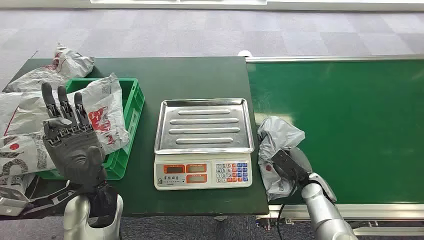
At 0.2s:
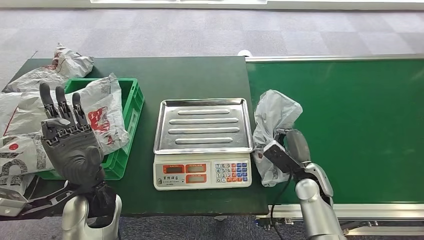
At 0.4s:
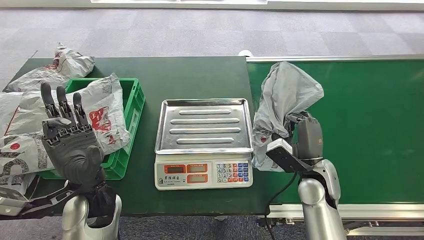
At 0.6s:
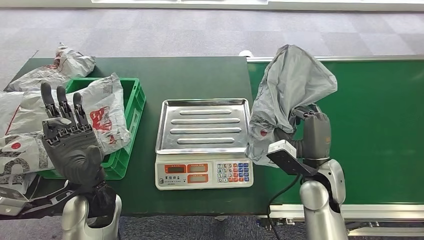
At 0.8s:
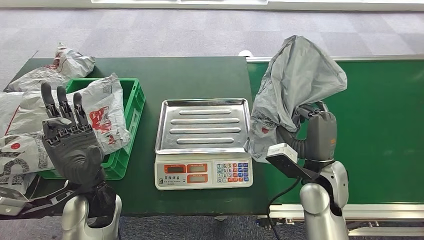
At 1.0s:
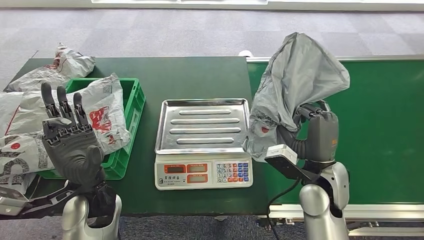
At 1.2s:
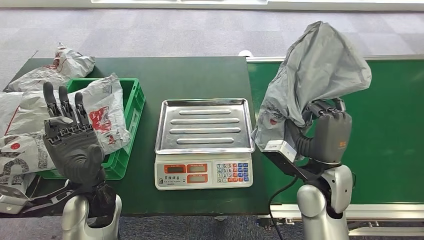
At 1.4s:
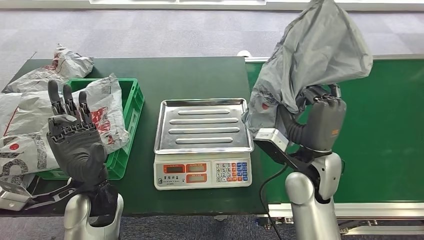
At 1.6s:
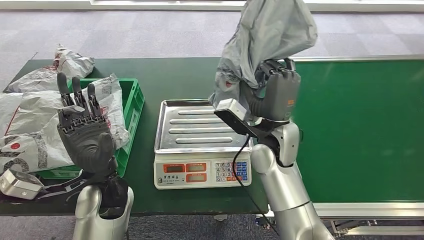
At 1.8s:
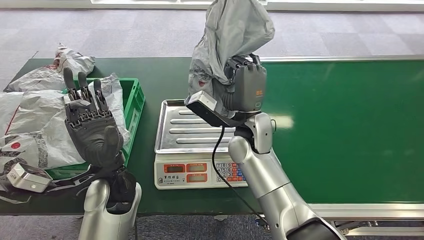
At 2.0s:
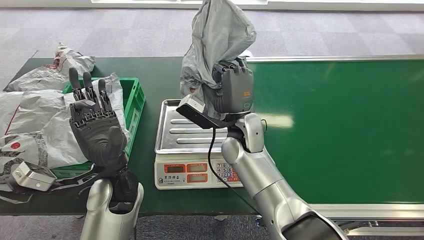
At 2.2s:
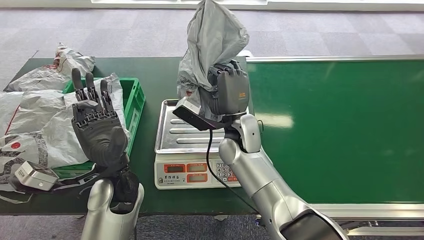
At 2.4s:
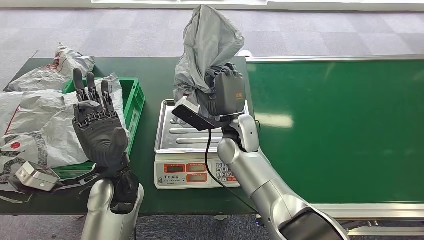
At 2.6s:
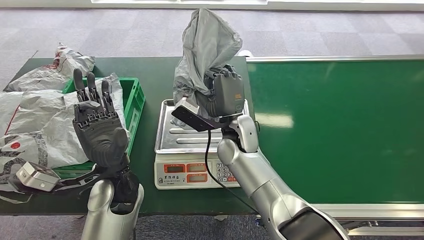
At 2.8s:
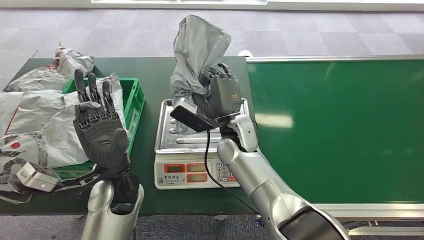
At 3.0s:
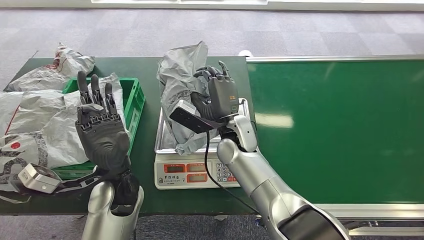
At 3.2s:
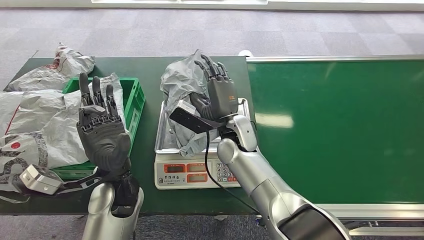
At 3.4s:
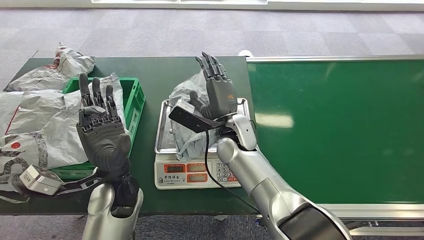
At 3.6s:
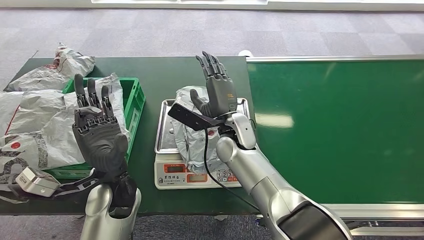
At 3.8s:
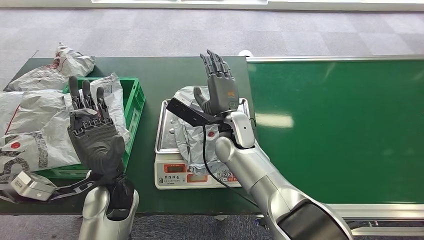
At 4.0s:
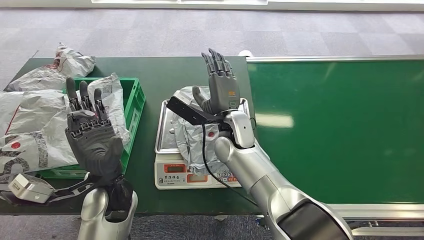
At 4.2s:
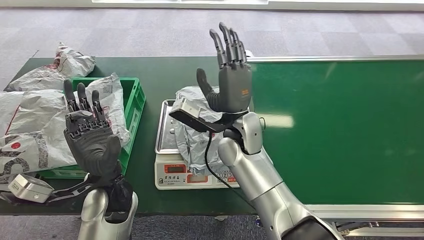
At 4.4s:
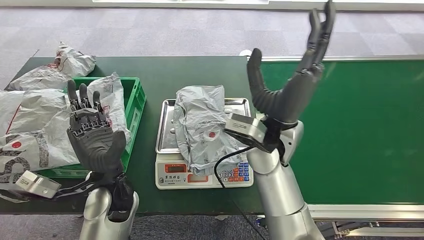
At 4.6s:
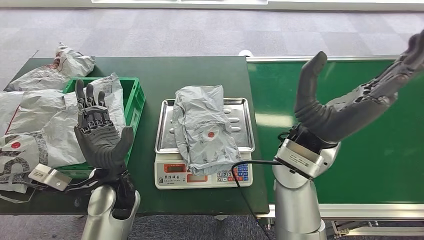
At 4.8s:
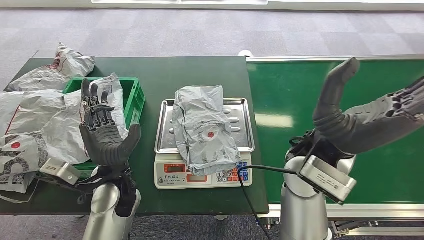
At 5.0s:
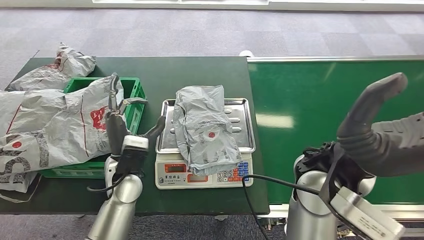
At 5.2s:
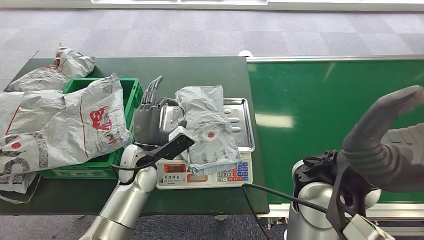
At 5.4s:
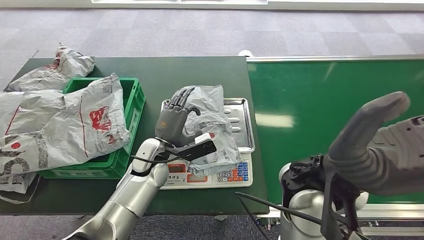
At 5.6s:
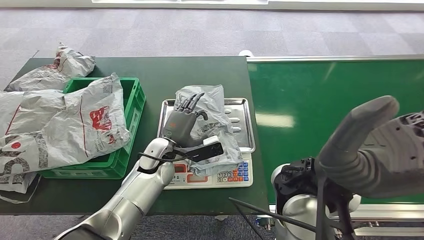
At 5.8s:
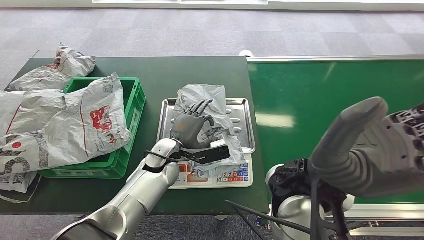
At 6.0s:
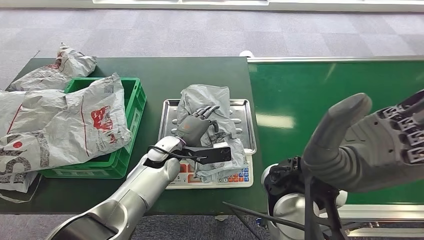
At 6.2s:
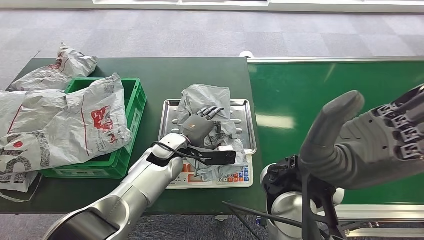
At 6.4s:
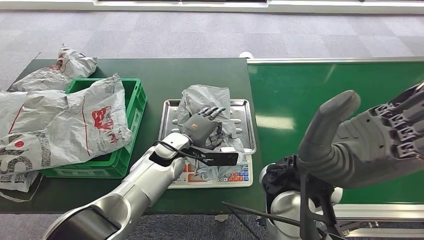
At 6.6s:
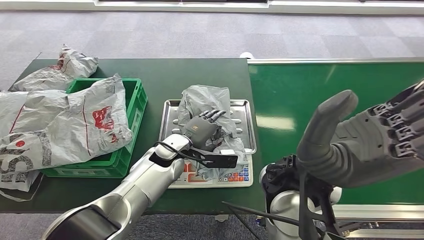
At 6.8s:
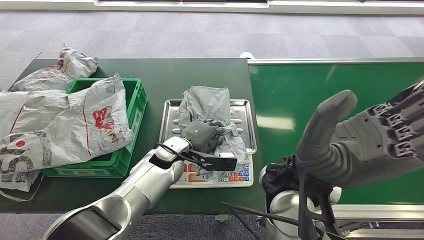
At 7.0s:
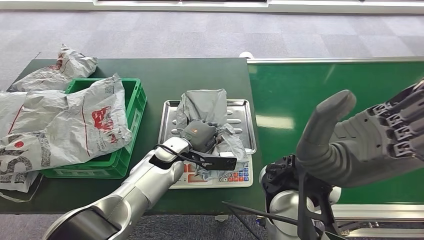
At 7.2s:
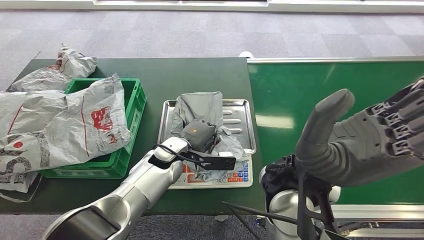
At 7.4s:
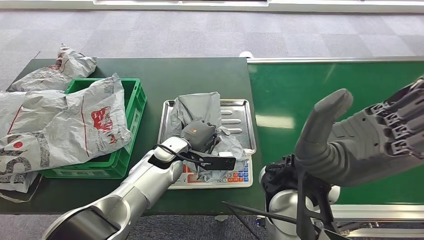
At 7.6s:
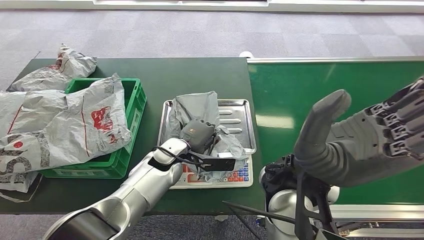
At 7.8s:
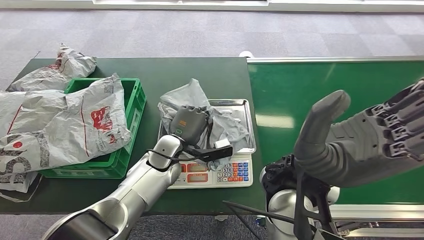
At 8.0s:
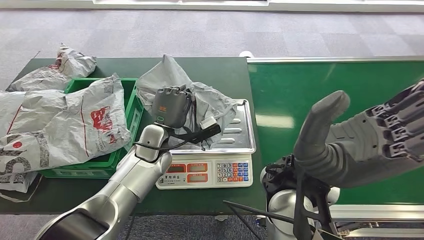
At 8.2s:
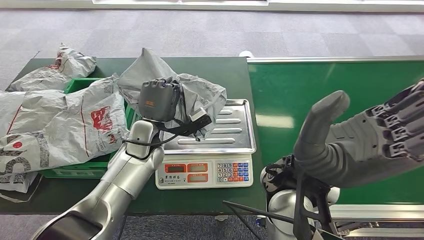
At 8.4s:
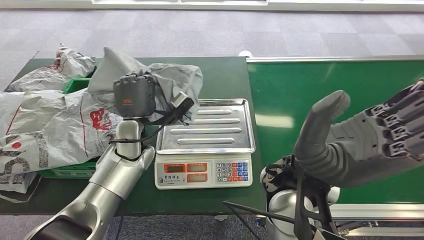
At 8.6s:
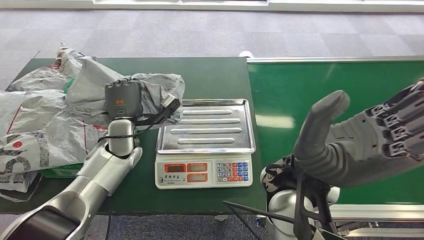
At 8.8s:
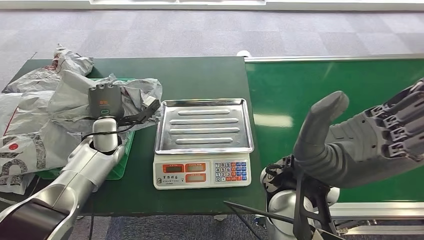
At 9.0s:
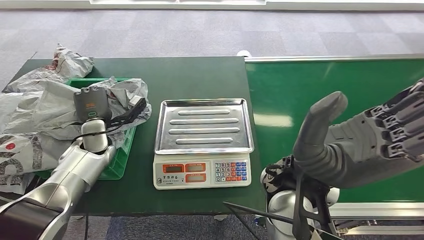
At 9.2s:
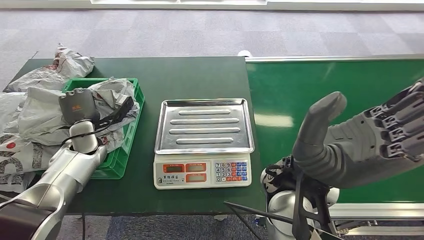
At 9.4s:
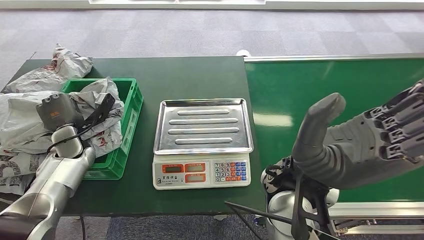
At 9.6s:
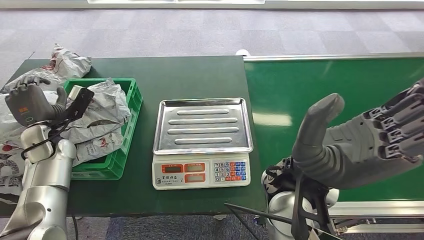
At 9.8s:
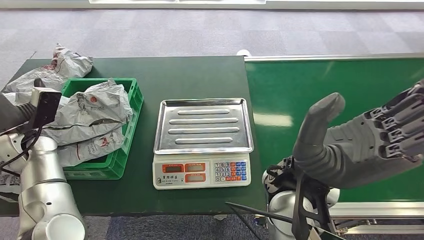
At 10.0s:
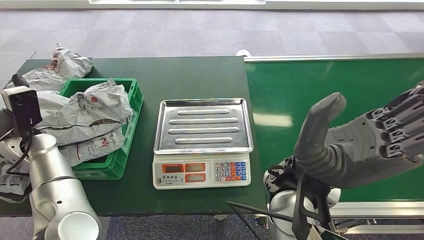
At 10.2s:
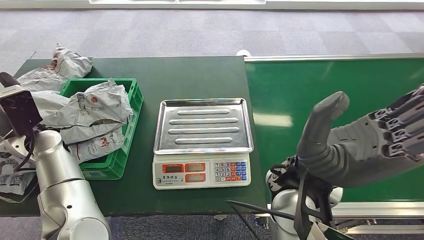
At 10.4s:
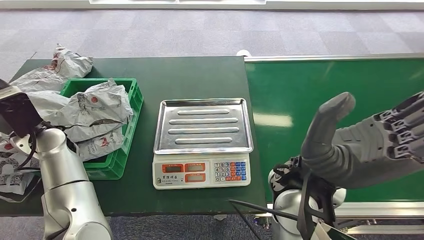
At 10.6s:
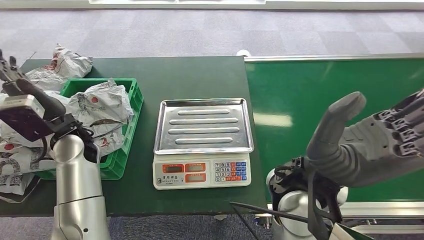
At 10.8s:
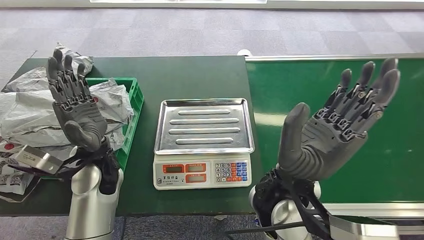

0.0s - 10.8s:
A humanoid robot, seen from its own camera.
Step, 0.0s - 0.6s: Pick up the package from the conveyor belt.
Step, 0.8s - 4.8s: Place the package onto the inbound machine.
Step, 5.0s - 8.2s: Pick up the package from the inbound machine.
Step, 8.4s - 10.8s: Place the package into the parcel locker.

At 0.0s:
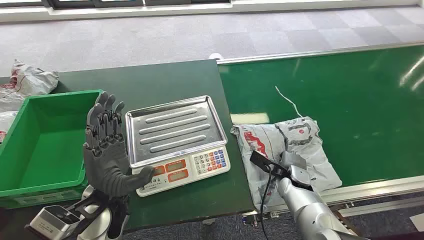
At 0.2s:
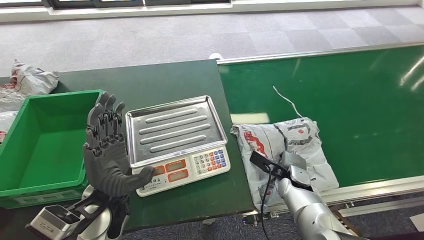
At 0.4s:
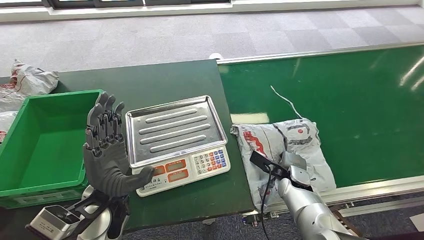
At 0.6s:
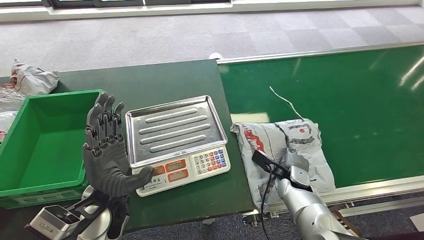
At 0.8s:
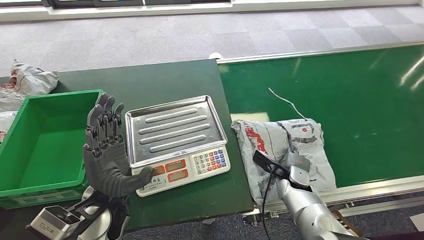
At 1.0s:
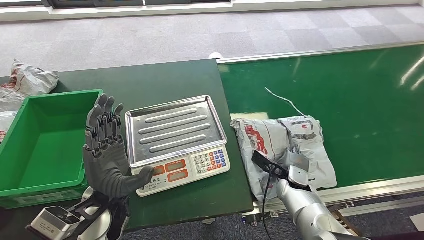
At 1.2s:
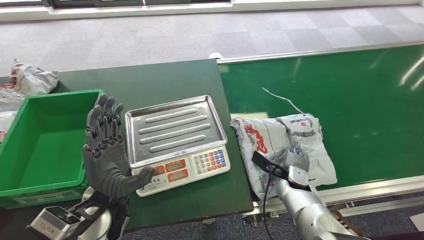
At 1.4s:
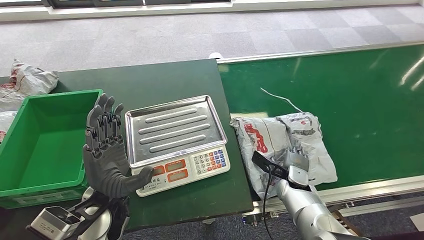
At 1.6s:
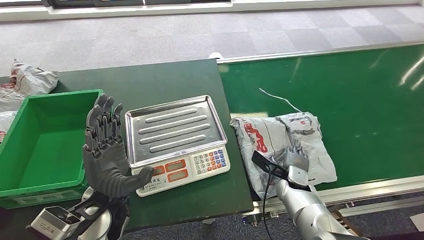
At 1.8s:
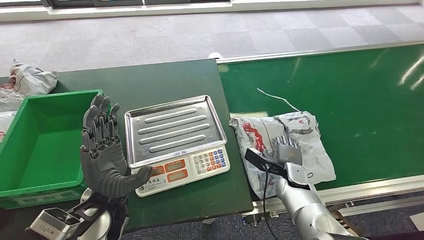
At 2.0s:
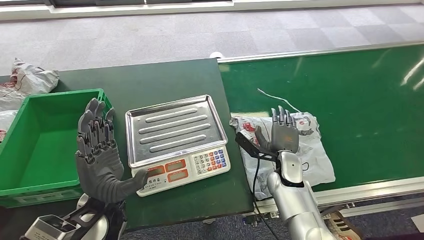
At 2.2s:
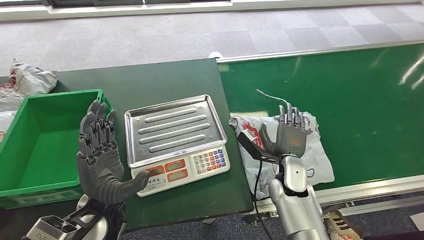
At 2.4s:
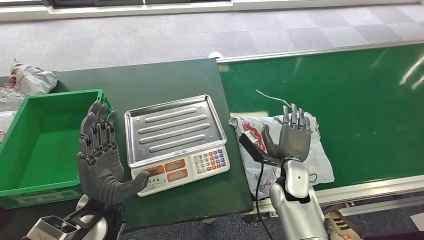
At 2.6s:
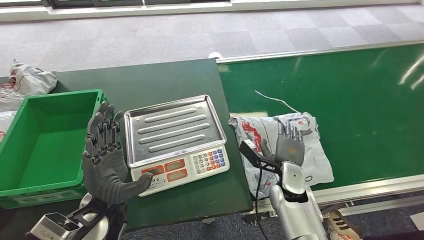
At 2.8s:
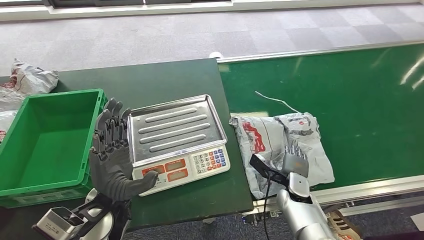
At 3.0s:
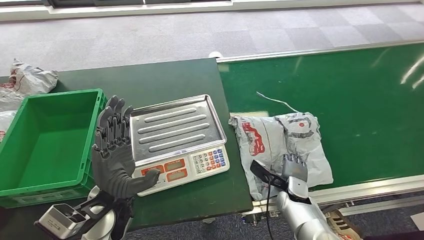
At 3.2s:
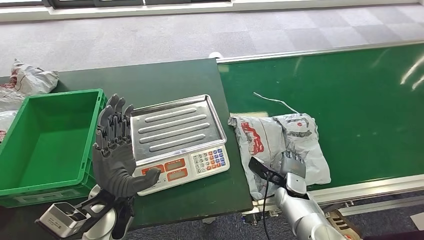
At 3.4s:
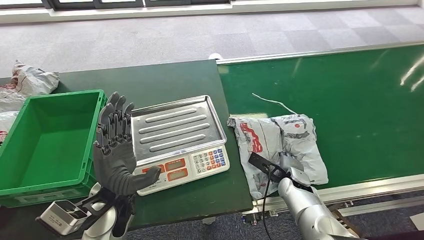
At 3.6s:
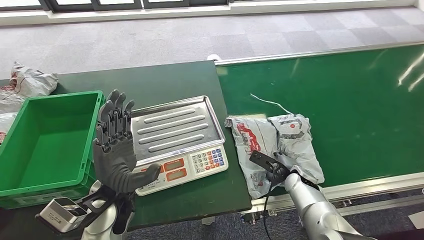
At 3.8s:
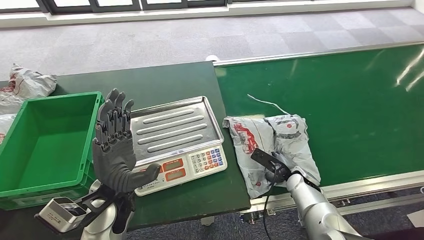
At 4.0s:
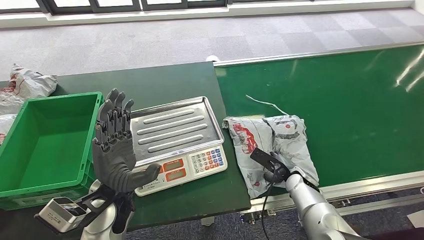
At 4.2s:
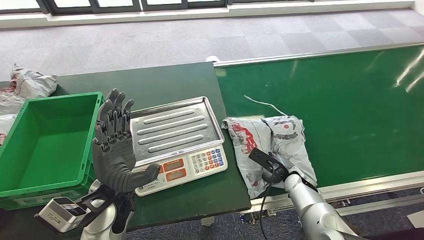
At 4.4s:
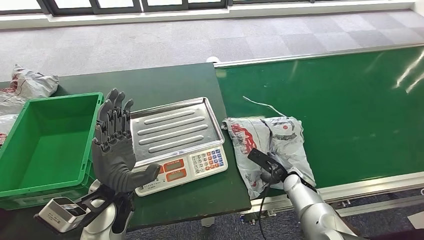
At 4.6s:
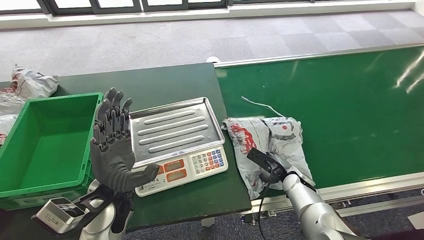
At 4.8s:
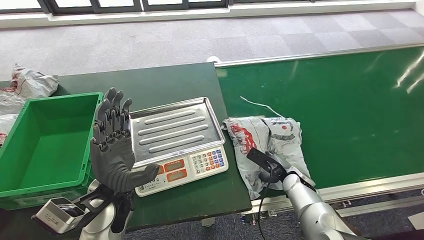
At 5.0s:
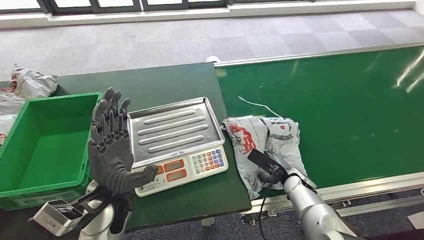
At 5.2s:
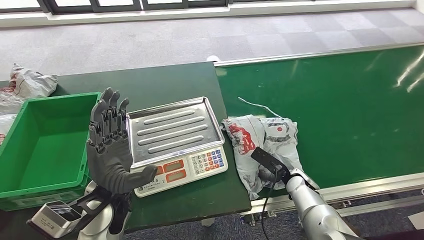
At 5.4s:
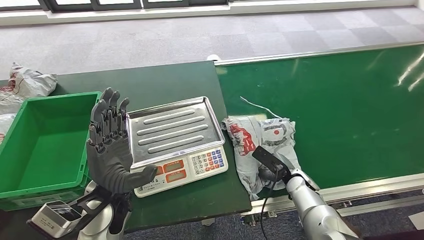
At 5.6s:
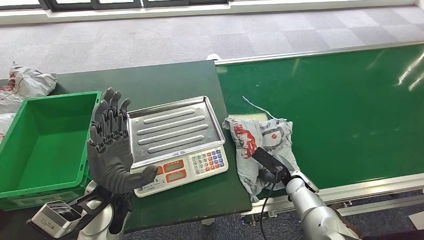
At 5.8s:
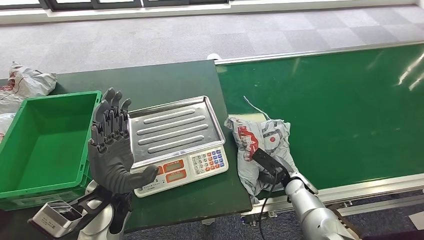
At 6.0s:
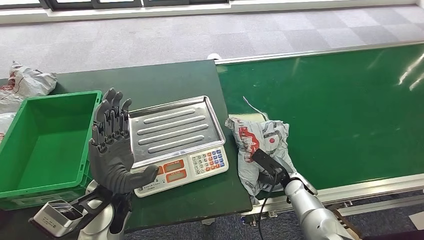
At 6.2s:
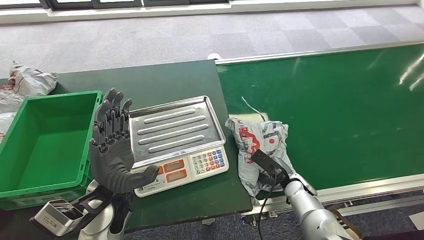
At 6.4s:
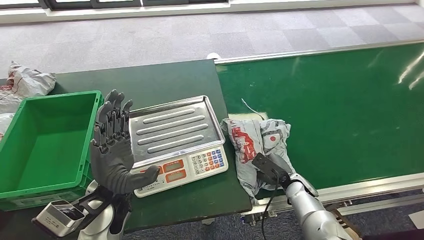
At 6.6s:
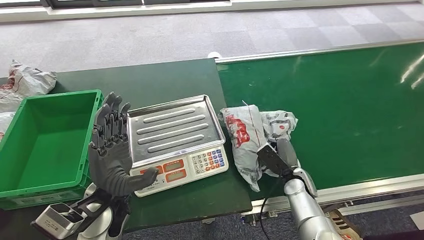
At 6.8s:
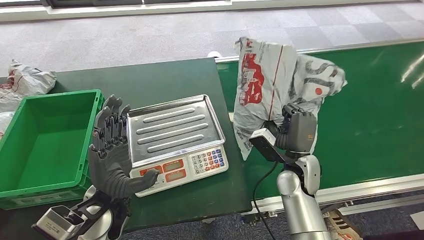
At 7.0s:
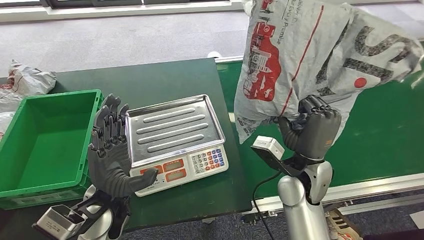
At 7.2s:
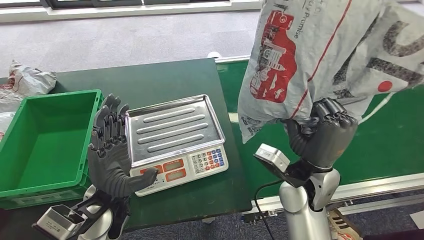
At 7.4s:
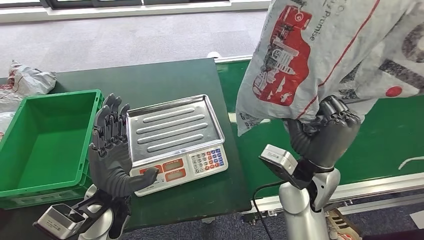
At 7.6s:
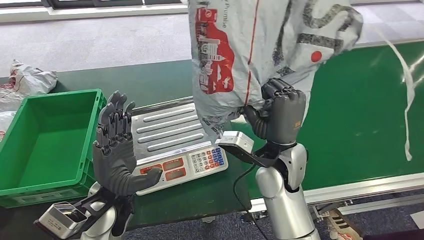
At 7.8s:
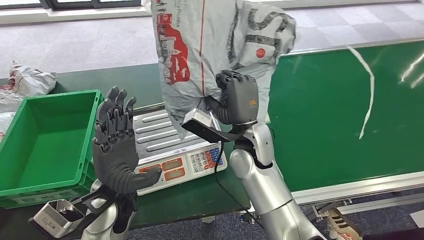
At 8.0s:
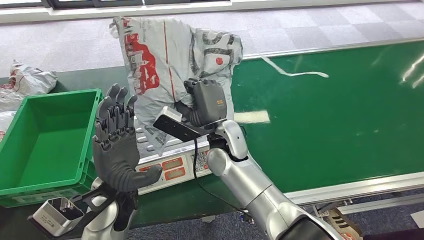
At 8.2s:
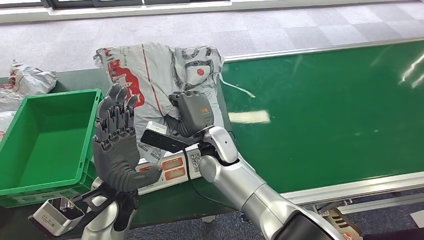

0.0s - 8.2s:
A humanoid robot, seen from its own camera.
Step, 0.0s - 7.0s: Pick up the package from the conveyor belt.
1.6s - 3.2s: The right hand goes upward and returns, approximately 10 cm each way.
